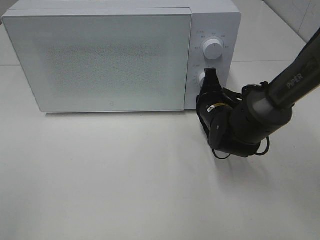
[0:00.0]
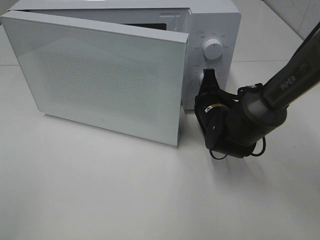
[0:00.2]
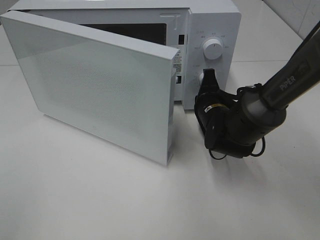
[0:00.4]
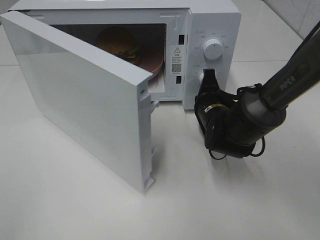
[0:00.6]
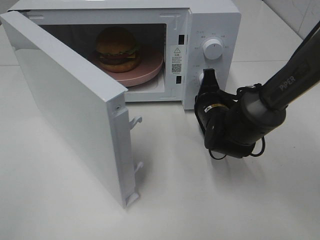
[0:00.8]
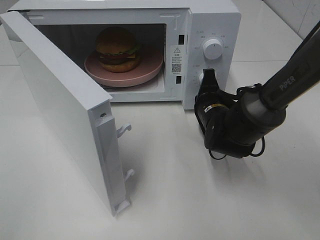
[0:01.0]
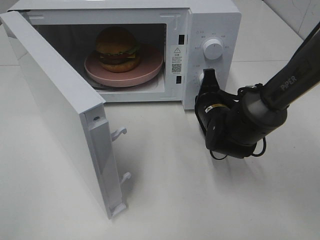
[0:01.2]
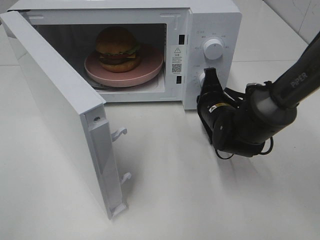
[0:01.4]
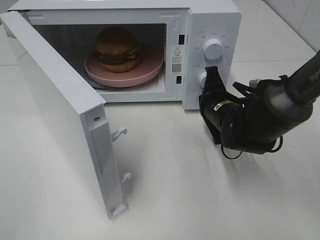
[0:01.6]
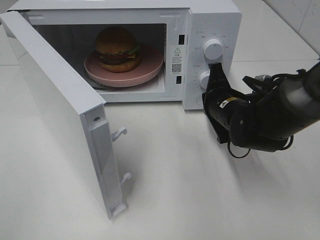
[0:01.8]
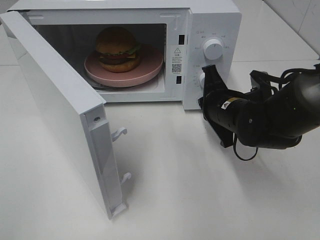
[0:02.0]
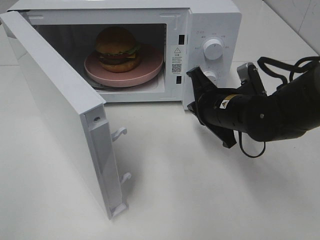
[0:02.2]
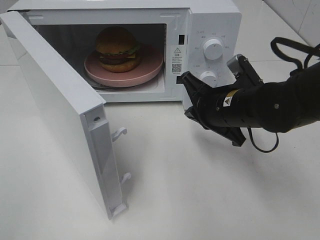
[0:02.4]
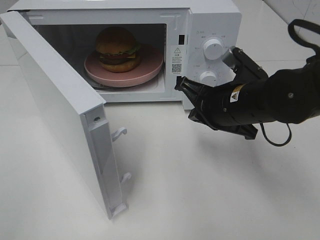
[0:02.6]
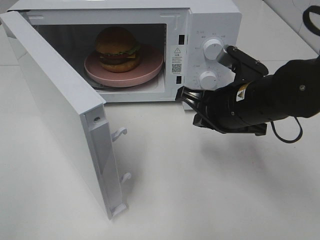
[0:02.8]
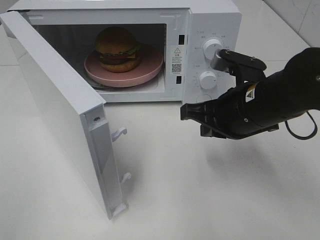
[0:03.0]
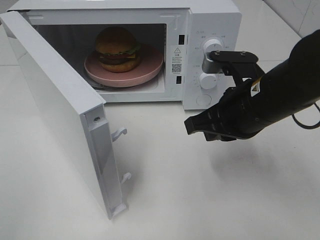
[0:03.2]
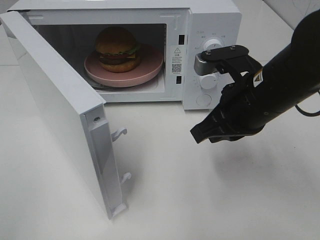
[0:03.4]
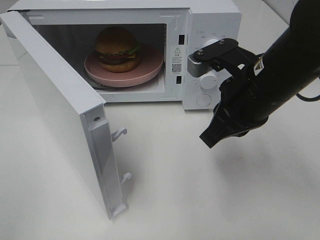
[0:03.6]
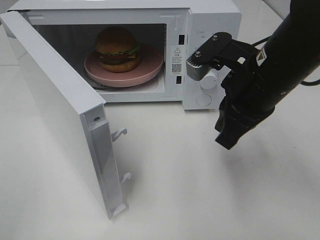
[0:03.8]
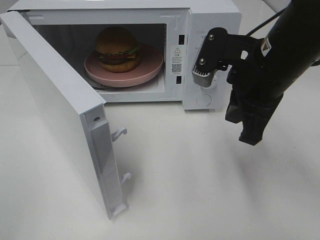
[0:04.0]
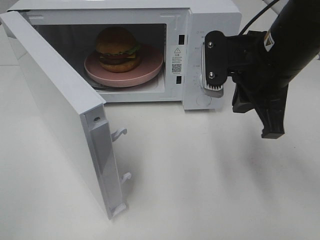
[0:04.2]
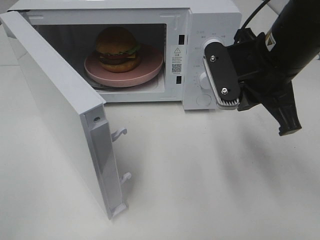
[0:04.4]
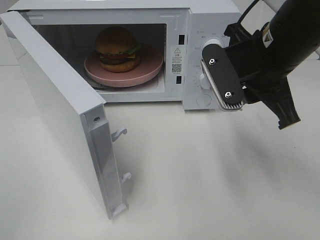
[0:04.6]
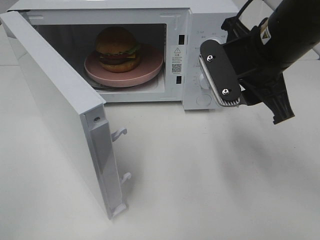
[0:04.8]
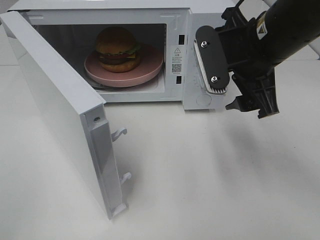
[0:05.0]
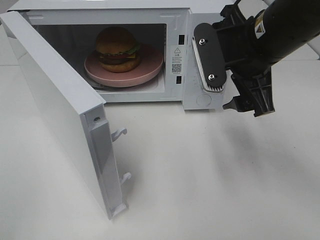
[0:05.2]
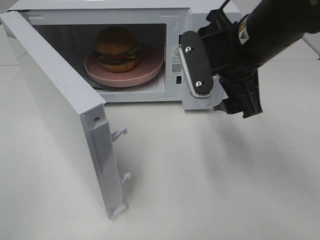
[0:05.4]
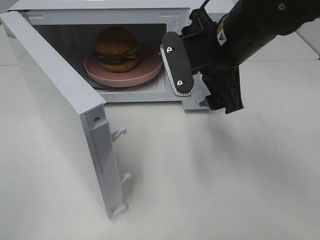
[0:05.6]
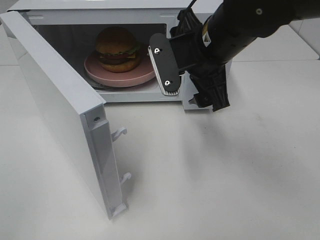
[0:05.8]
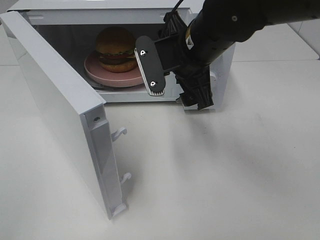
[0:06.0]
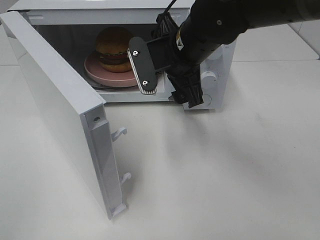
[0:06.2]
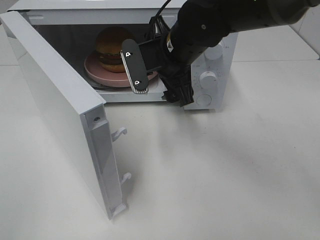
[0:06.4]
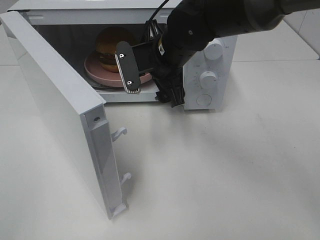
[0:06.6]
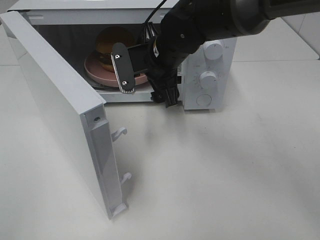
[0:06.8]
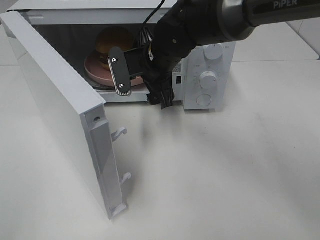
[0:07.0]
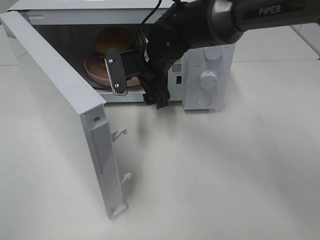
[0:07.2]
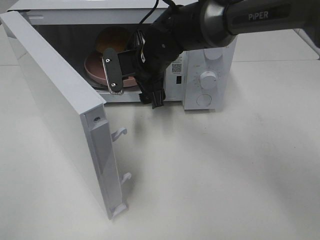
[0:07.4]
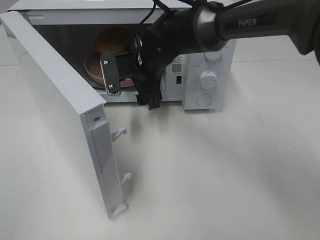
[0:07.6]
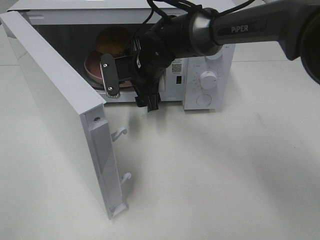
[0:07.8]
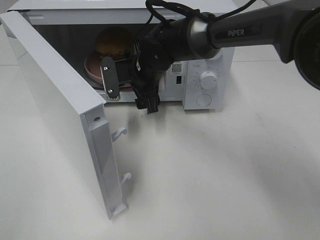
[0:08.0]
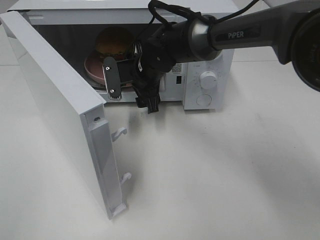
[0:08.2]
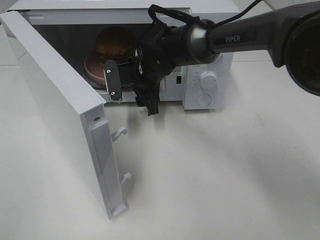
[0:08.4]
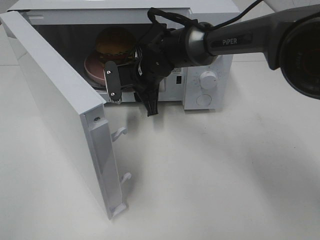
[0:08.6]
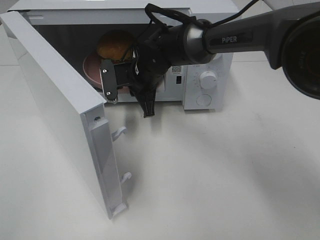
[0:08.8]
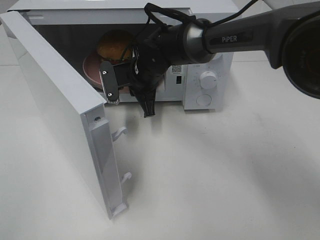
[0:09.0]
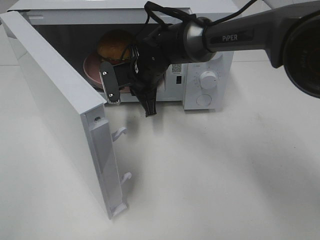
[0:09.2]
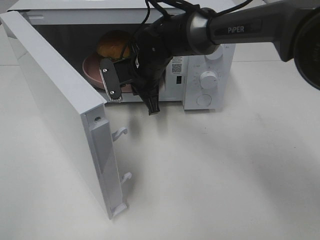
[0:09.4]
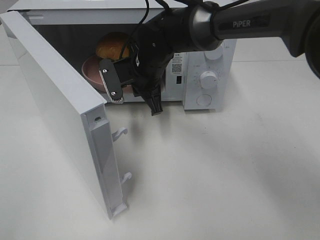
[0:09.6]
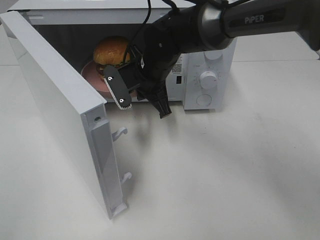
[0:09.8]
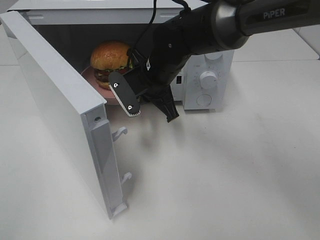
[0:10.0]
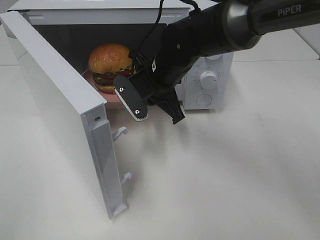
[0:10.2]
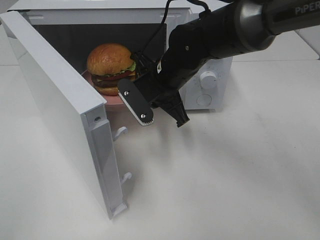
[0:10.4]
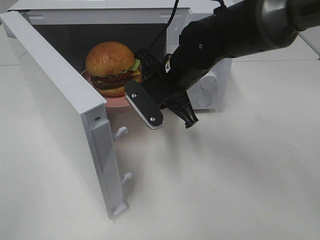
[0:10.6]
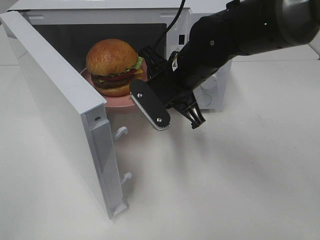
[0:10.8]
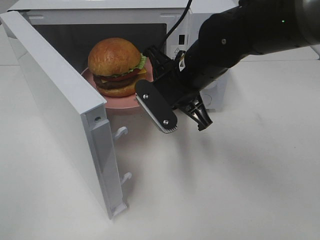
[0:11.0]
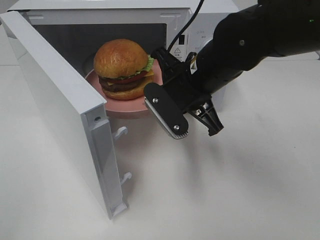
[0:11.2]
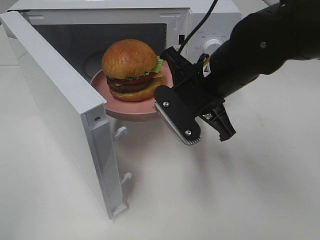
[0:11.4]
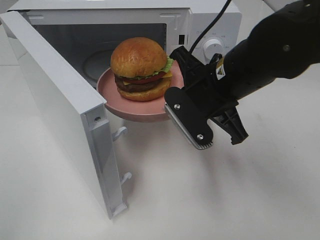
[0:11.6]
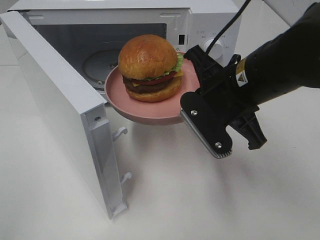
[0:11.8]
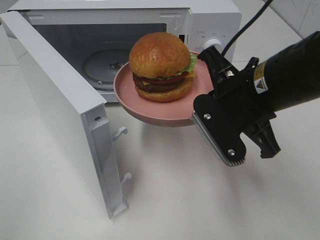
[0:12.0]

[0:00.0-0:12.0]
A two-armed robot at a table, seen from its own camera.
Task of the whole recording: Heat the burger.
Step, 0:00.0 to 0:02.0: Right hand: press the switch.
Step, 0:02.2 to 0:08.6: Right hand: grab the plate with the hamburger.
0:01.6 to 0:03.0: The right gripper is displaced upward and backward by some 10 cm.
0:03.0 to 0:04.4: The right gripper moves upward, approximately 5 cm.
0:04.4 to 0:06.0: The right gripper shifts some 10 cm to the left and forward, and opens up.
0:06.0 to 0:07.6: The right gripper goes approximately 15 cm forward, downward and to the left.
0:07.6 to 0:09.0: The right gripper closes its fingers.
0:09.0 to 0:10.4: The right gripper moves backward, some 5 cm.
0:10.4 to 0:12.0: The right gripper is displaced backward, to the right and upward by some 15 cm.

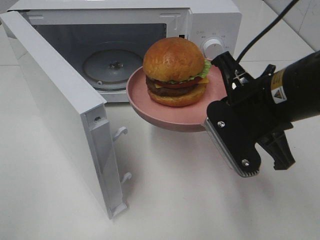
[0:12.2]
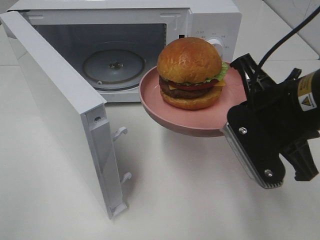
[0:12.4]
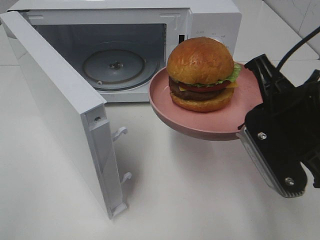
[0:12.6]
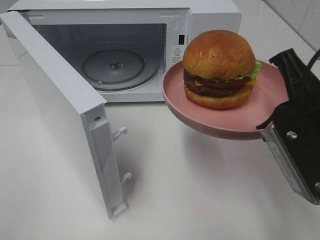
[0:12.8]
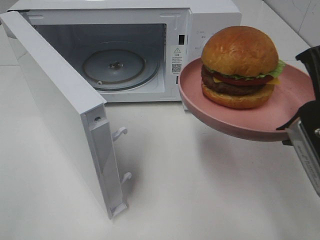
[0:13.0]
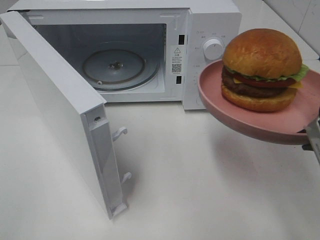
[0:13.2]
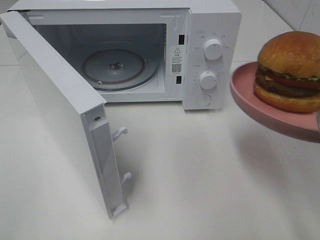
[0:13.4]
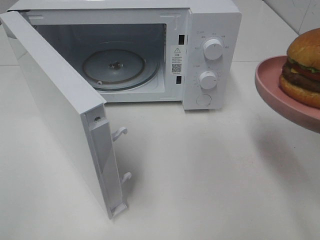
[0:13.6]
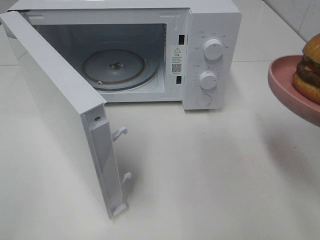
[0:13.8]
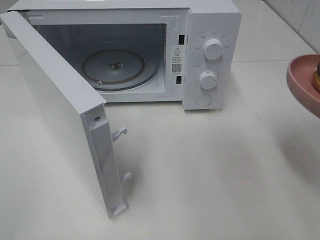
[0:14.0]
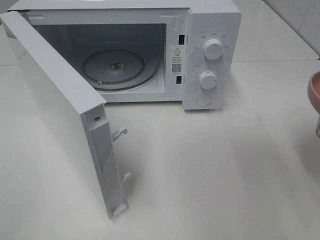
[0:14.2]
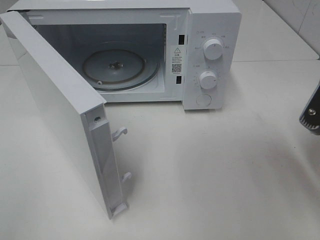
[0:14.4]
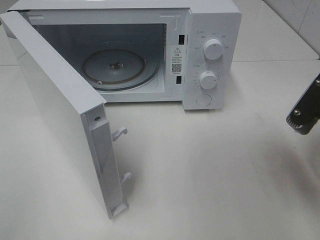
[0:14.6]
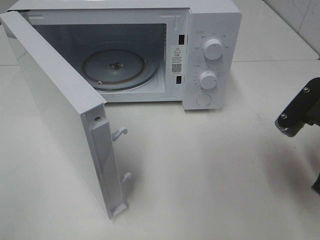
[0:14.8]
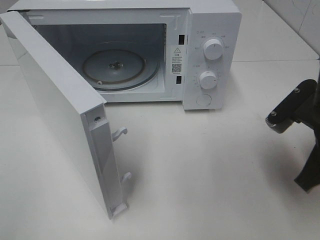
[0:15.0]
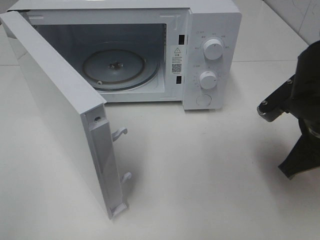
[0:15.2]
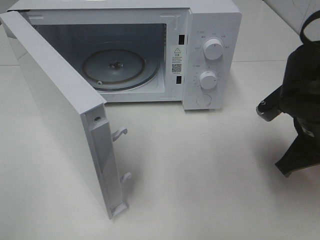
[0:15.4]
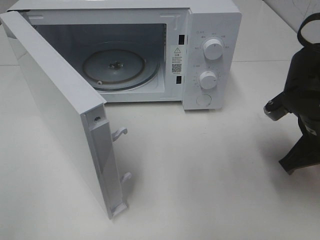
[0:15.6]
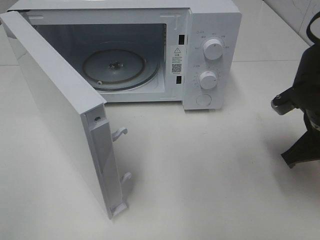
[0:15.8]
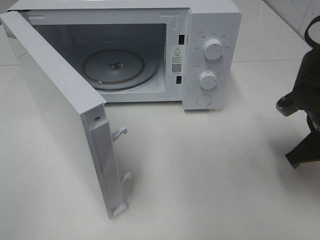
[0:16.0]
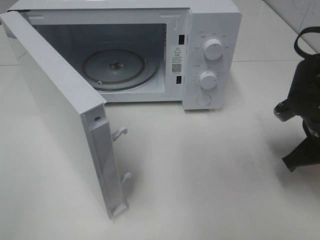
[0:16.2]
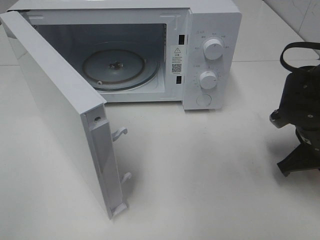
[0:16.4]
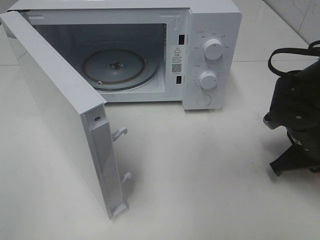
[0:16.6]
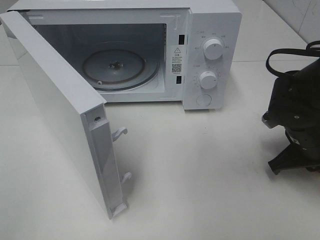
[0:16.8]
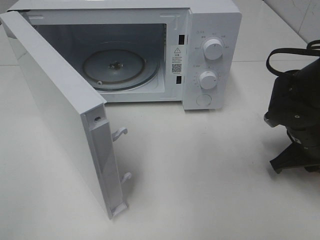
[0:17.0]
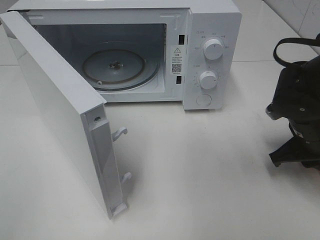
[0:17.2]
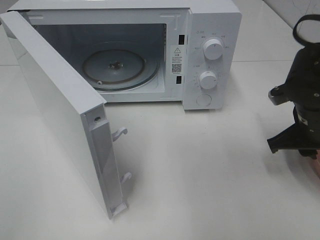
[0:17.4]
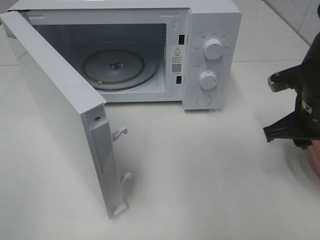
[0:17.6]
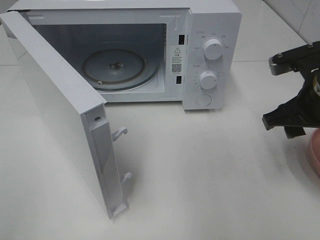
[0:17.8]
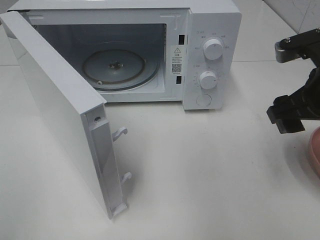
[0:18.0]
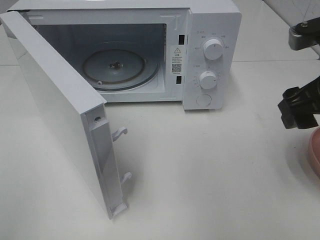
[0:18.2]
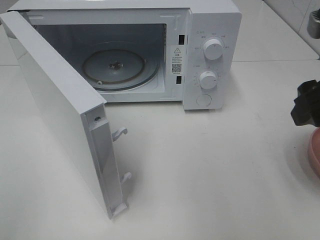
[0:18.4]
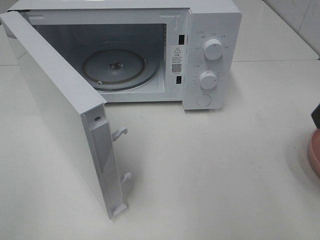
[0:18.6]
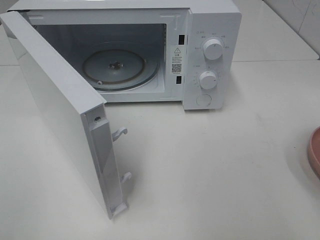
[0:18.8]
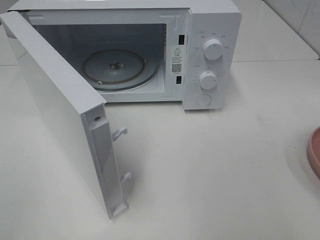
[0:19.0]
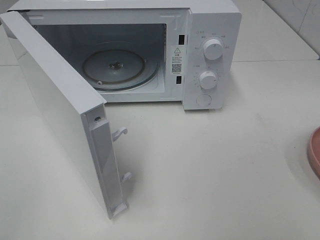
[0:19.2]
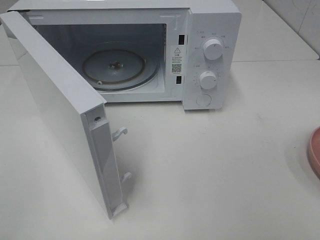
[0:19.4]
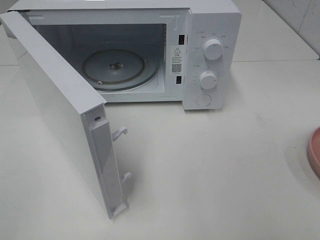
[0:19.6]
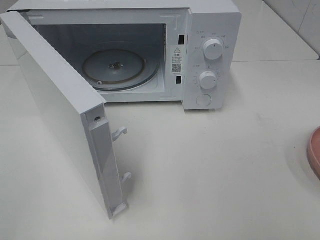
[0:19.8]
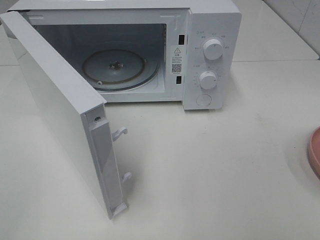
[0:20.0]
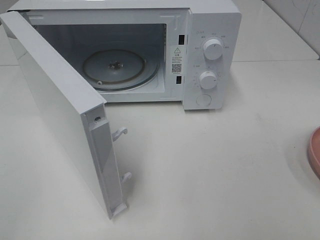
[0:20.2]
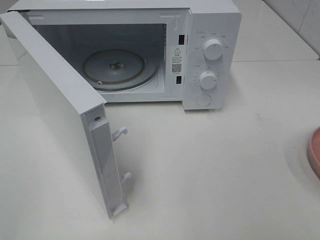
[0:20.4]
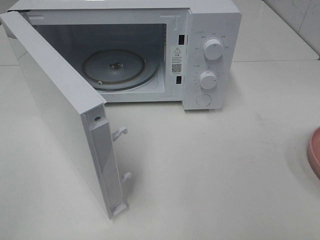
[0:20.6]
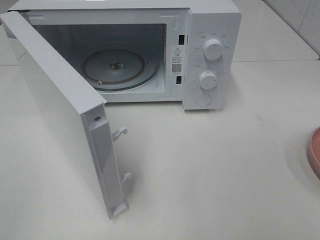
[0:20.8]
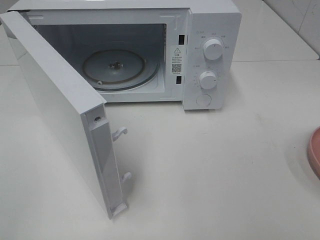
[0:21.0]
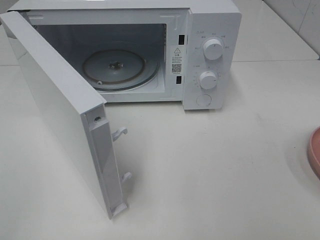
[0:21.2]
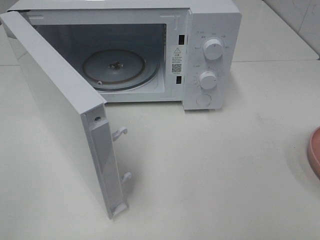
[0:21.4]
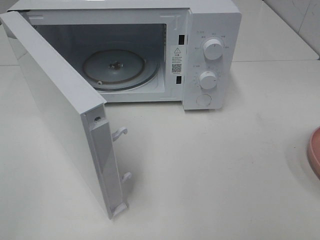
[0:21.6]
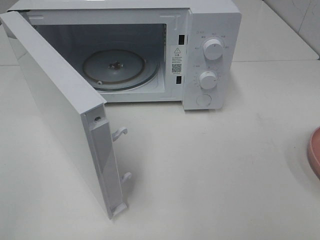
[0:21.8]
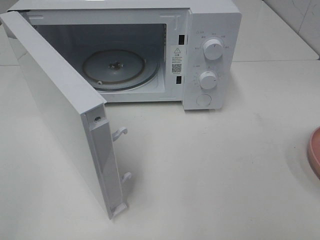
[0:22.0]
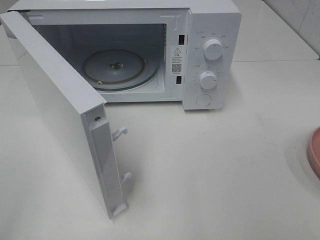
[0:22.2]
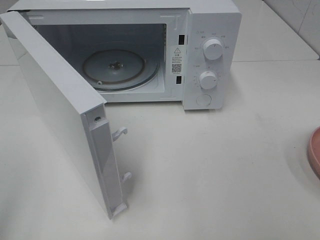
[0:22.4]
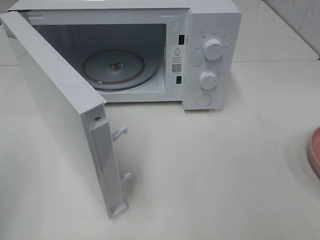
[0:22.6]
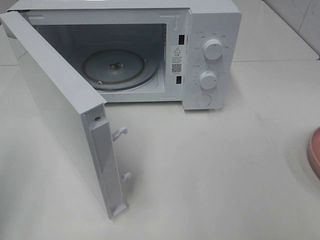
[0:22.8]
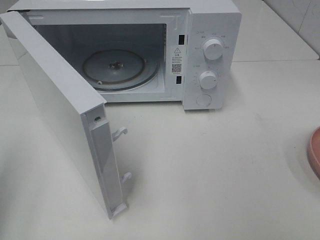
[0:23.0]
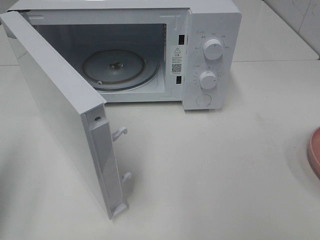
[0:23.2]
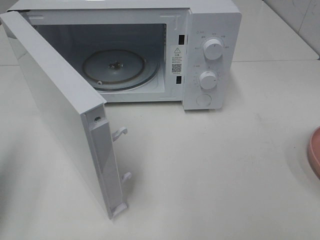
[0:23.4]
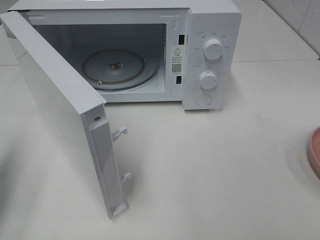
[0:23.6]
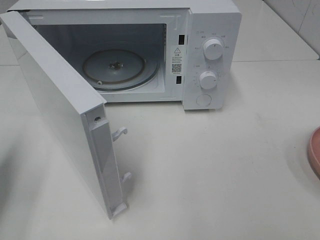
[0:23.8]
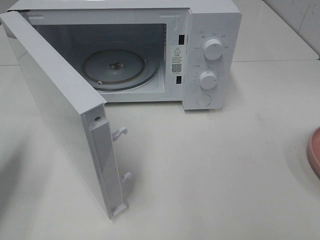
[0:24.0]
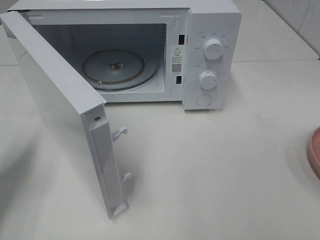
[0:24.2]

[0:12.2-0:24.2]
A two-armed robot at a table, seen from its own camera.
Task of the whole recording: Heat the burger.
Step, 0:12.2 to 0:17.8: Right hand: place the plate on the table.
0:12.2 to 0:13.8: The right gripper heads to the right and backward, covering some 10 cm.
0:13.8 to 0:15.2: The right gripper moves downward and forward, about 10 cm.
0:15.2 to 0:16.6: The right gripper is displaced downward and forward by approximately 10 cm.
0:16.6 to 0:18.2: The right gripper is displaced upward by about 15 cm, and opens up.
0:18.2 to 0:19.8: The right gripper heads backward, covering some 20 cm.
0:22.6 to 0:24.2: The left gripper is displaced forward and downward by some 20 cm.
